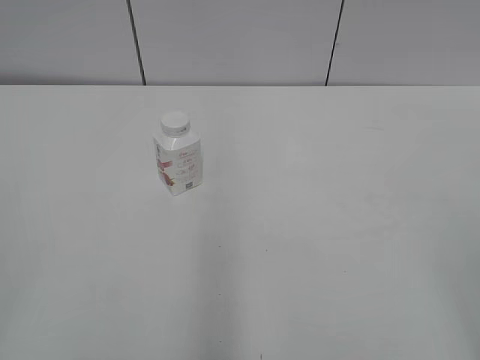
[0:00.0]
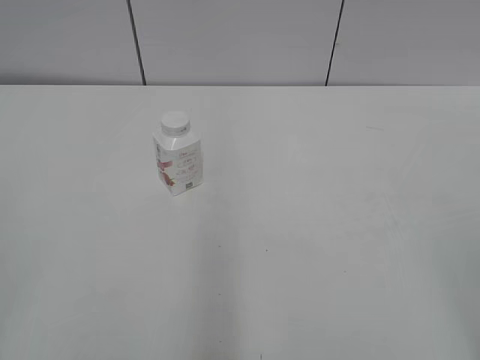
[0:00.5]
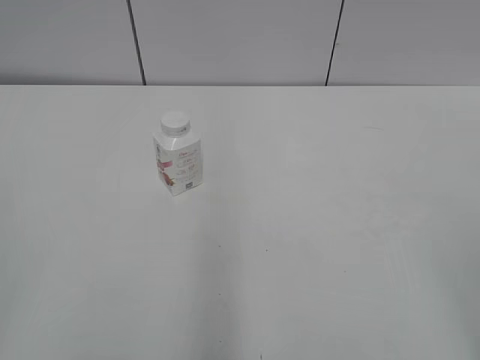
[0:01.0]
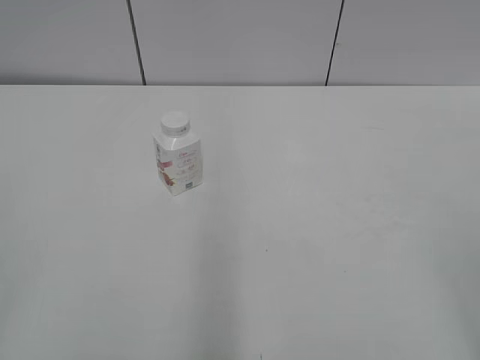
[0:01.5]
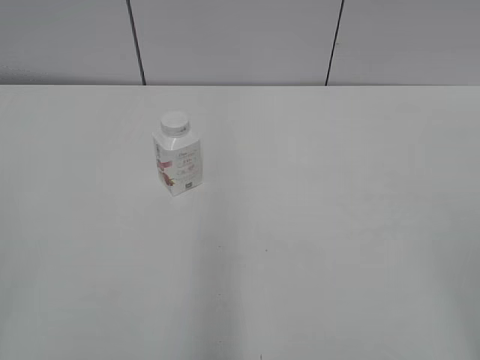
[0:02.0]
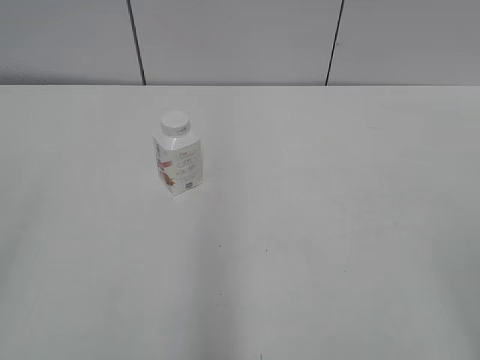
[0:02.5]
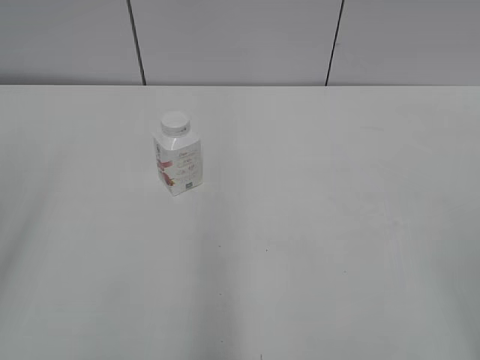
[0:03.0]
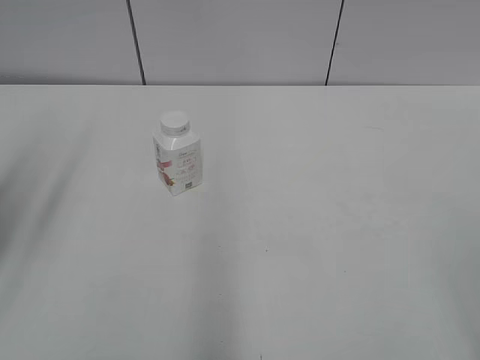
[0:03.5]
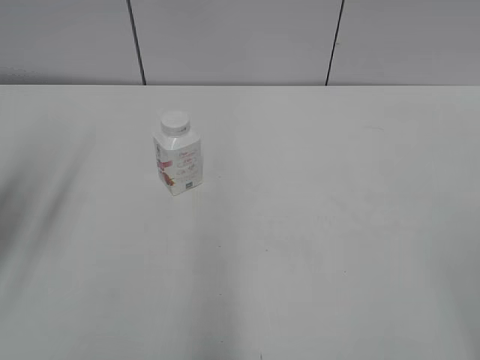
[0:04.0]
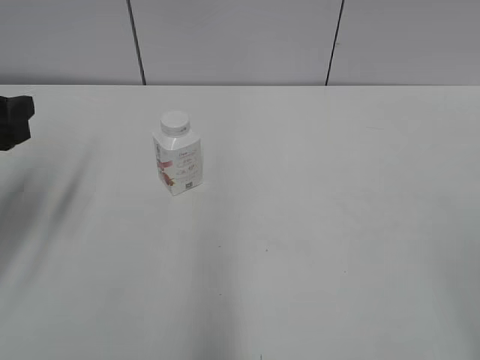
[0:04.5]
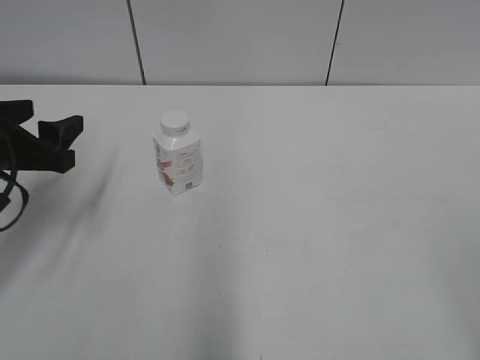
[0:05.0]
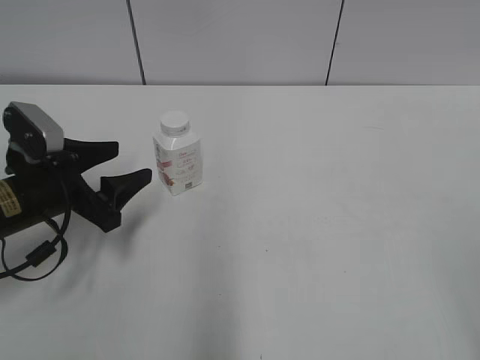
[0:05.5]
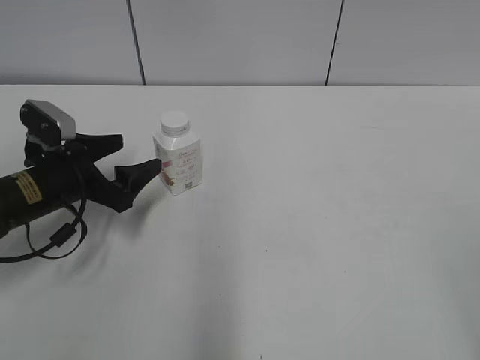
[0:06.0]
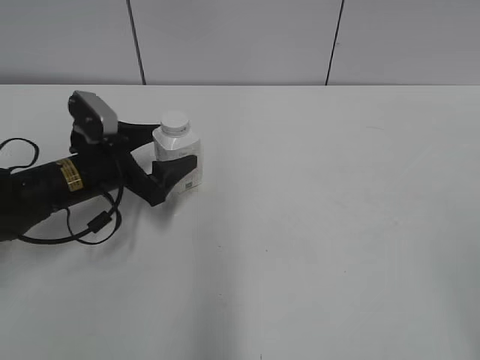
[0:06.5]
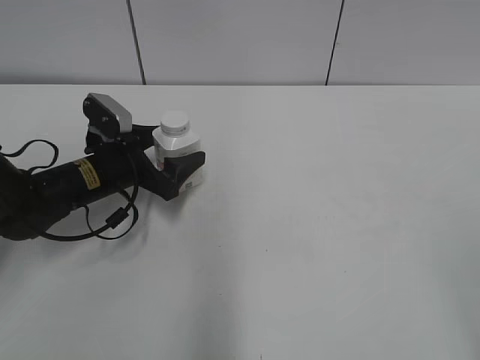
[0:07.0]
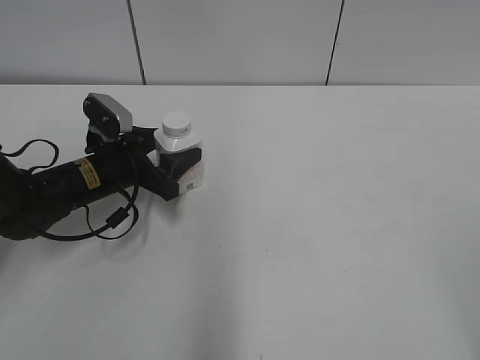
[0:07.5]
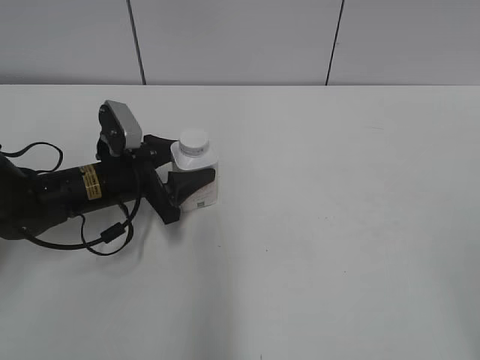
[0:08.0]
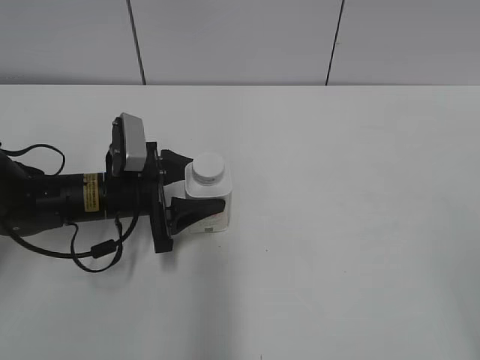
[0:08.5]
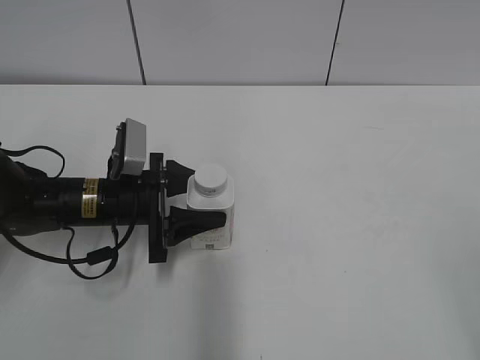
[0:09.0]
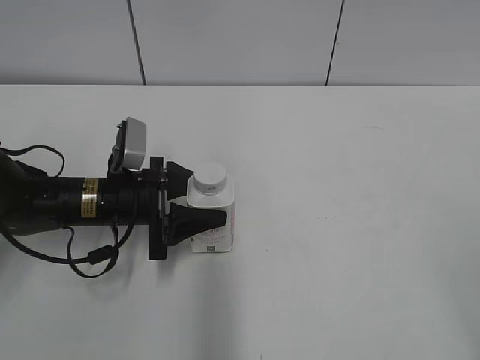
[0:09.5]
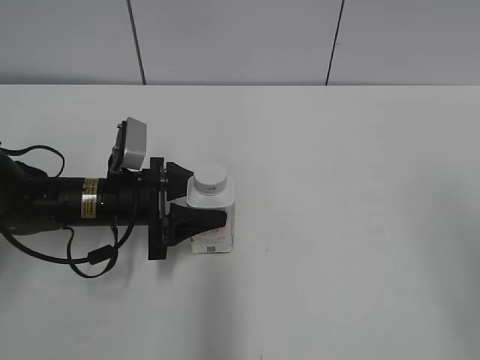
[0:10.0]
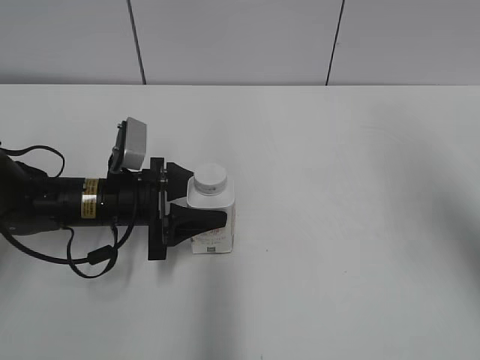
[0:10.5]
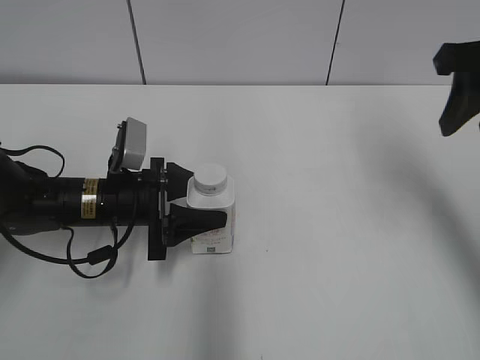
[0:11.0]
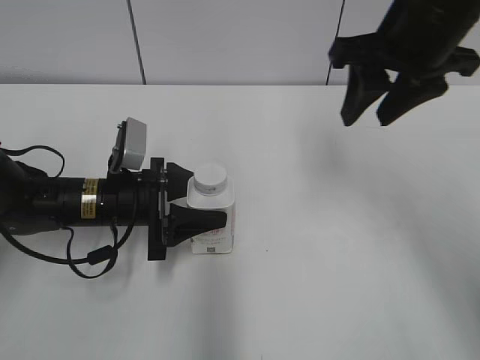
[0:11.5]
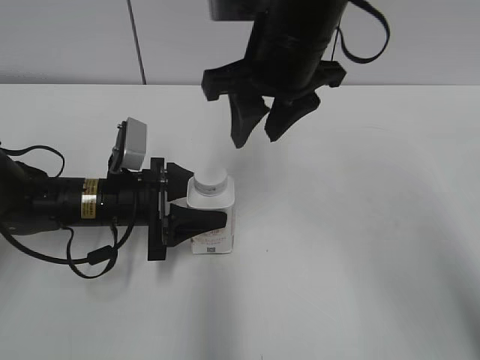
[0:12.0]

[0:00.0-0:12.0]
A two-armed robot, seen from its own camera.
Step, 0:00.0 to 0:07.5: Grasp the bottle and move it to the center of the table with the left gripper.
Step, 0:08.0 to 0:09.5: Lift the bottle and move it to the center of the table with the left gripper.
0:02.0 to 0:04.0: The left gripper travels forward by some 20 cm, and opens up.
0:04.0 to 0:06.0: The left gripper heads downward and forward, covering roughly 20 cm.
0:06.0 to 0:08.0: The left gripper moves to the right, approximately 5 cm, and closes.
0:08.0 to 0:10.0: The right gripper is displaced forward by approximately 5 cm.
0:10.0 to 0:12.0: The right gripper heads forward and to the left, covering approximately 35 cm, and closes.

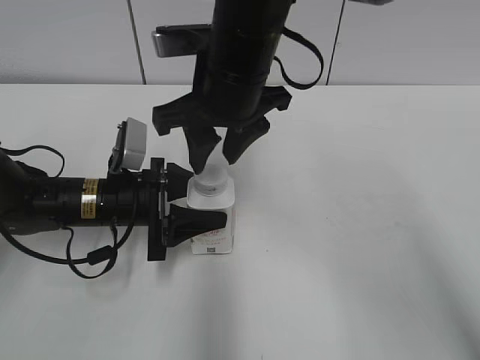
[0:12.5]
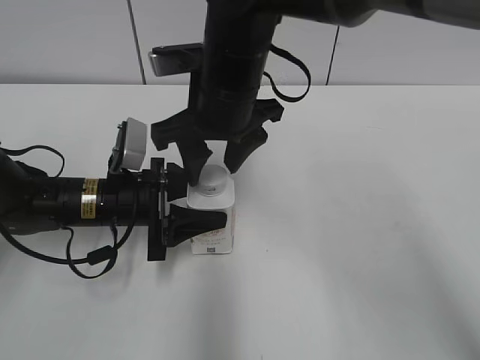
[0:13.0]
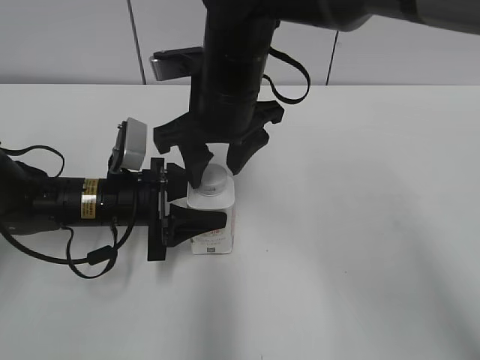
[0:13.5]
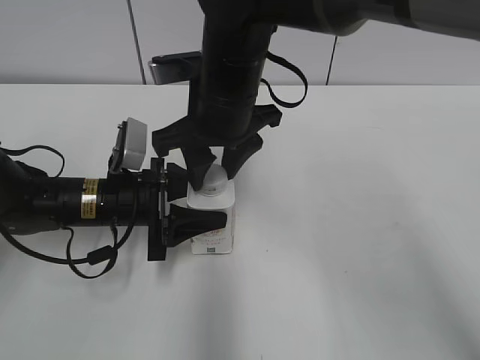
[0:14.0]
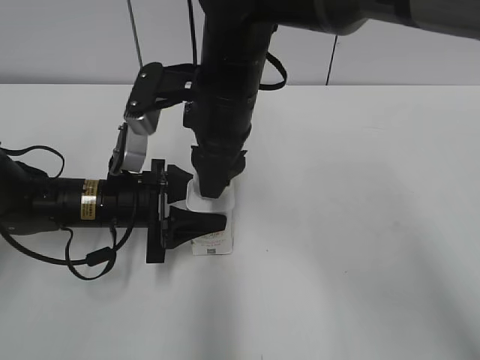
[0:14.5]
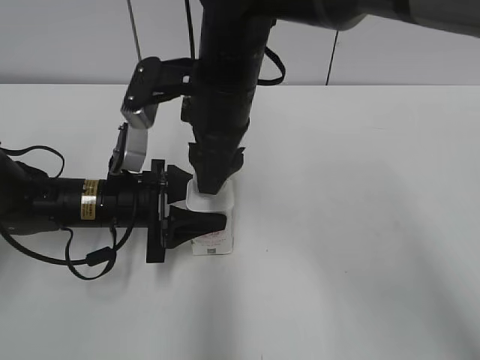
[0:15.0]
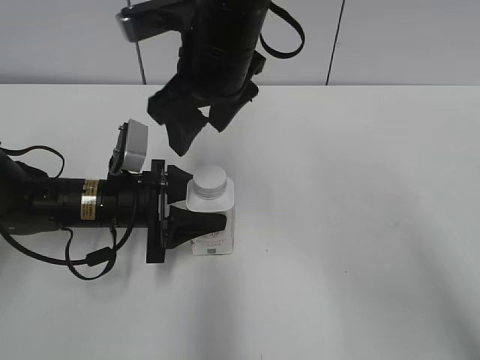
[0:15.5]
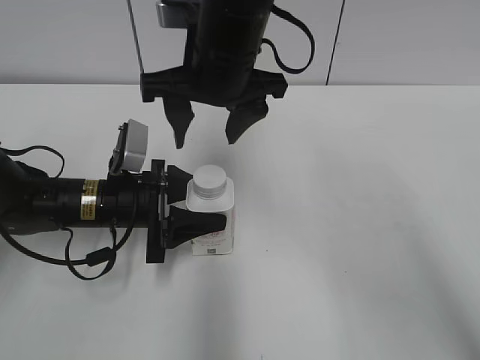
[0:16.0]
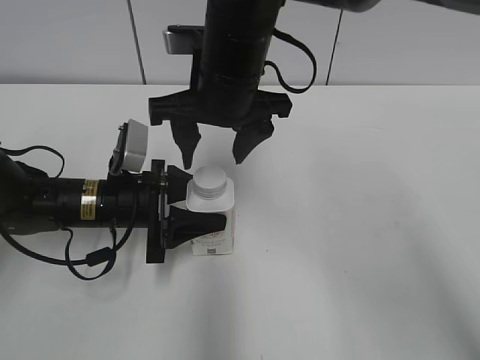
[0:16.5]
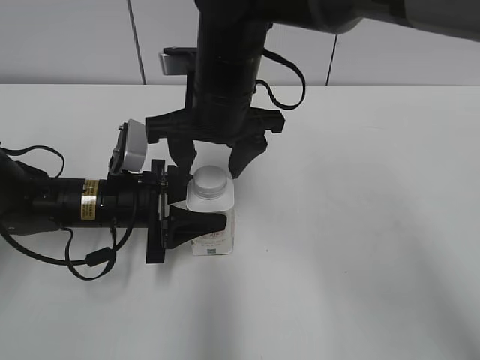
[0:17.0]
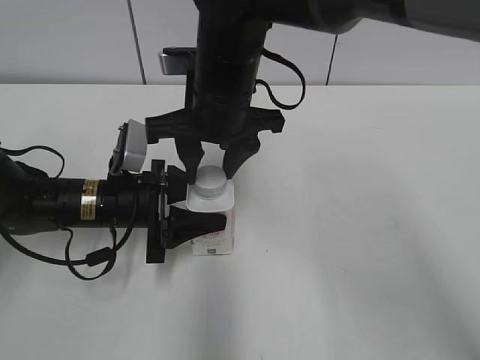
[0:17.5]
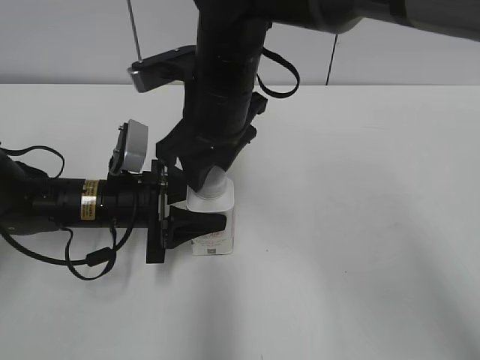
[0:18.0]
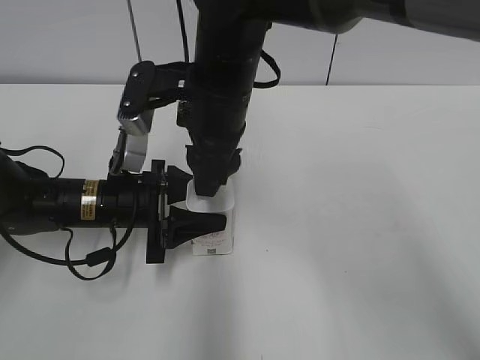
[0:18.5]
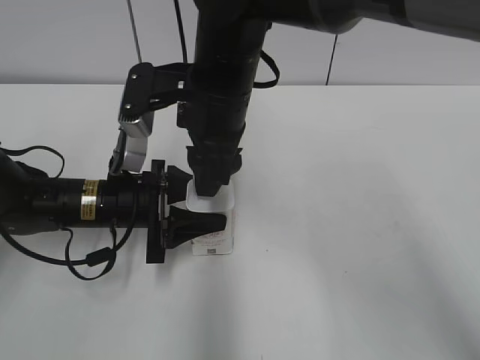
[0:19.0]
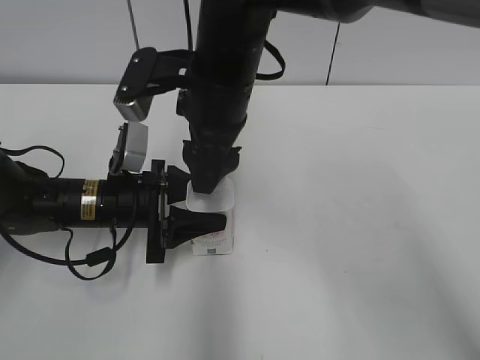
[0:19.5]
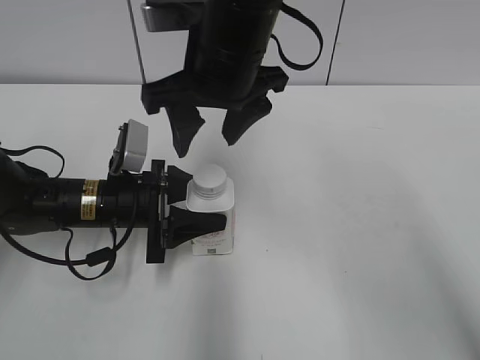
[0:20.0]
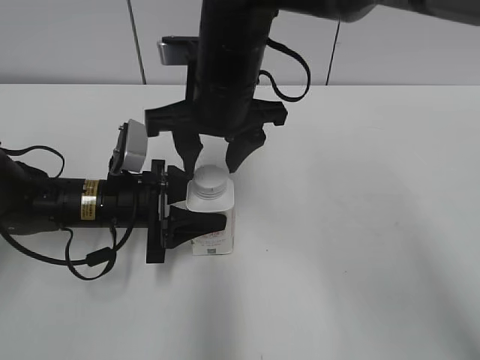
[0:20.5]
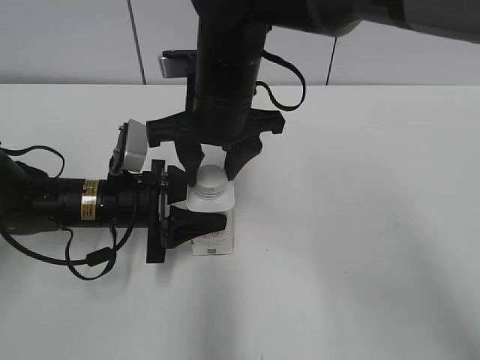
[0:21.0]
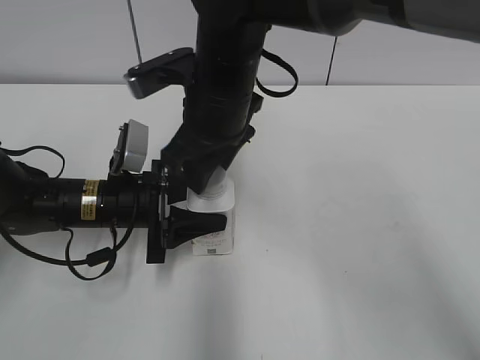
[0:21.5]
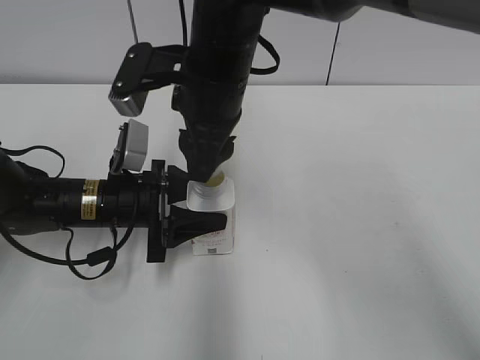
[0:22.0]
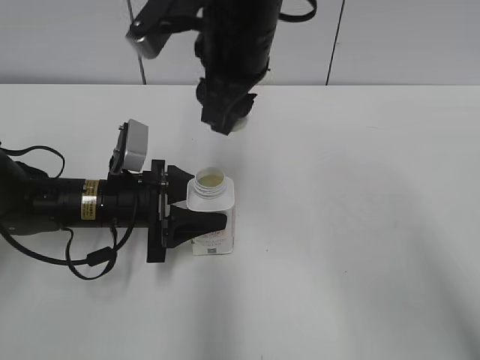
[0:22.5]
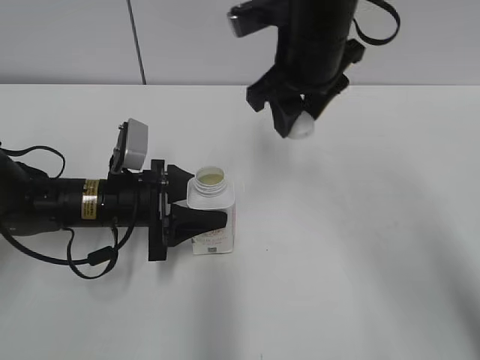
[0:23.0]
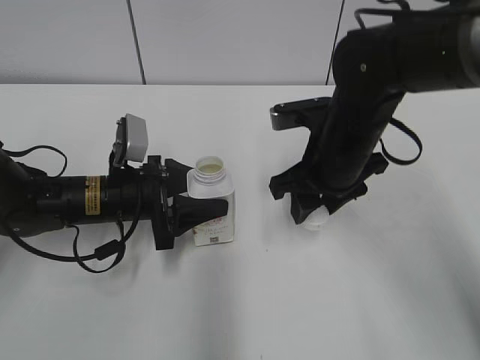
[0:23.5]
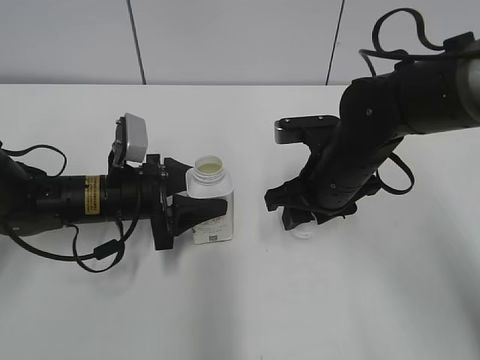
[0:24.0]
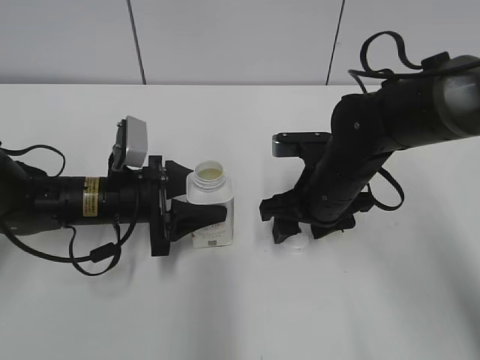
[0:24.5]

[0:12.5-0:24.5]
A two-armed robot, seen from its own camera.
Step, 0:12.5 to 0:22.0: Unscrew the bottle cap with the right gripper while holding the bottle with the left gripper.
Step, 0:22.5 to 0:24.0: Place the bottle cap on the table with the right gripper.
0:12.5 to 0:14.5: The right gripper opens, then closes once more.
0:14.5 to 0:16.5: The right gripper opens.
0:16.5 to 0:18.5: The right gripper closes.
0:18.5 to 0:20.5: The right gripper opens, then closes once more.
0:20.5 to 0:22.5: The right gripper closes.
0:22.5 to 0:24.5: The right gripper shifts approximately 20 cm downward and to the right, and opens up.

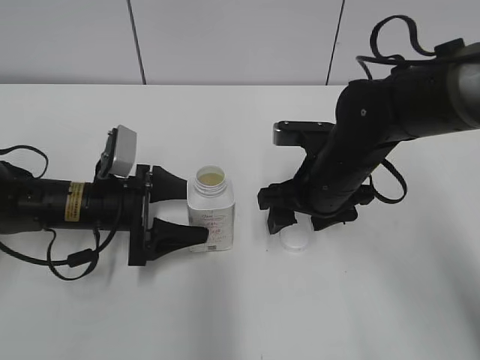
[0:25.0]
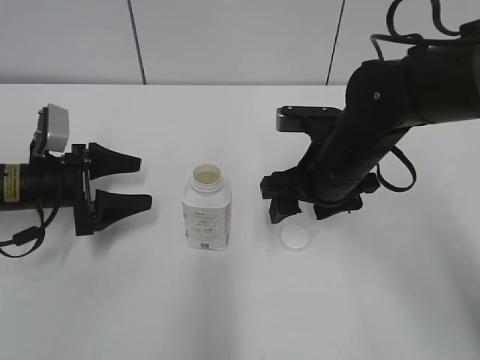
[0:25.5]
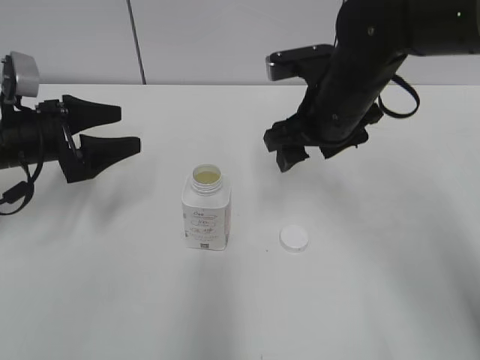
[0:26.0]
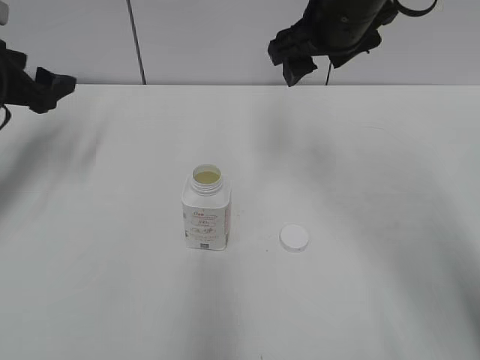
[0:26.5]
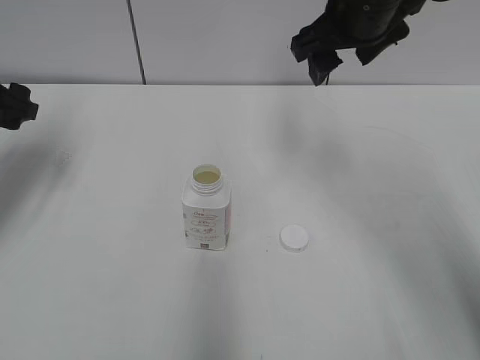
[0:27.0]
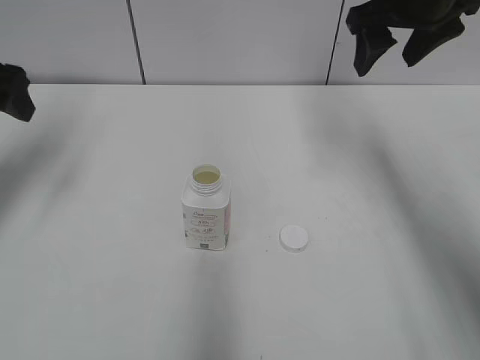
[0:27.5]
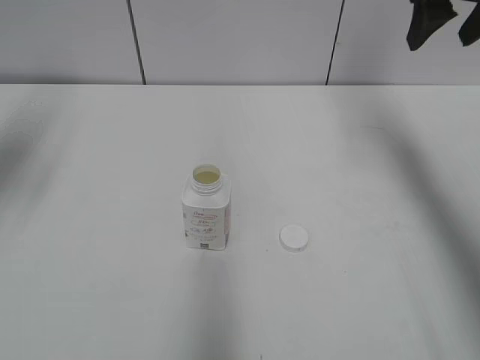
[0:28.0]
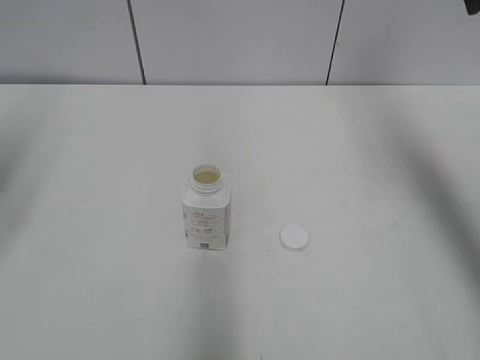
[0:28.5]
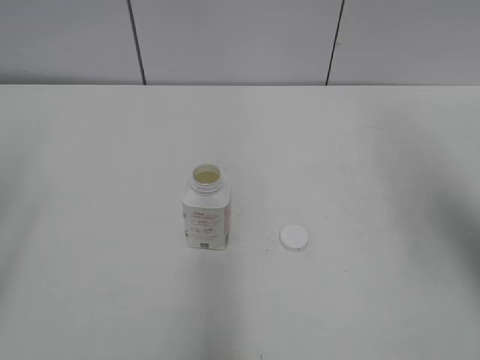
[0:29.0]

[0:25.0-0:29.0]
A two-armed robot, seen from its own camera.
0:25.0 to 0:27.0: The right gripper shifts roughly 15 cm upward. The left gripper goes some 20 cm upward and to the left.
0:27.0 to 0:29.0: The left gripper heads backward and upward, covering some 25 cm; the right gripper goes some 25 cm backward, to the right and upward.
